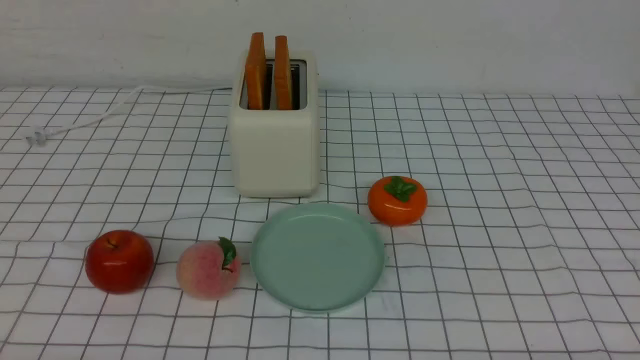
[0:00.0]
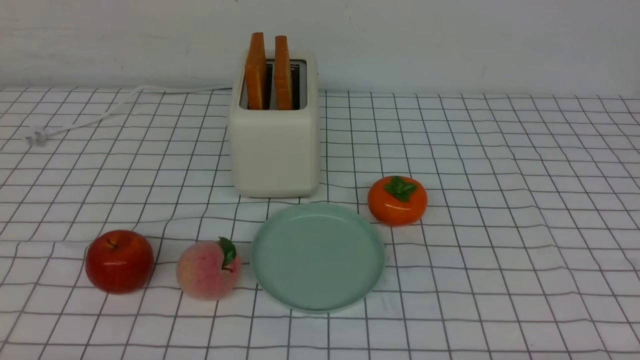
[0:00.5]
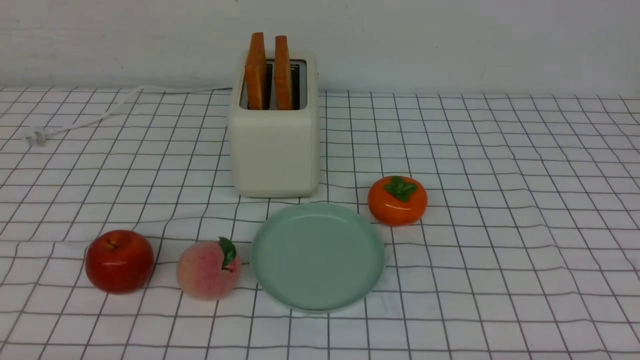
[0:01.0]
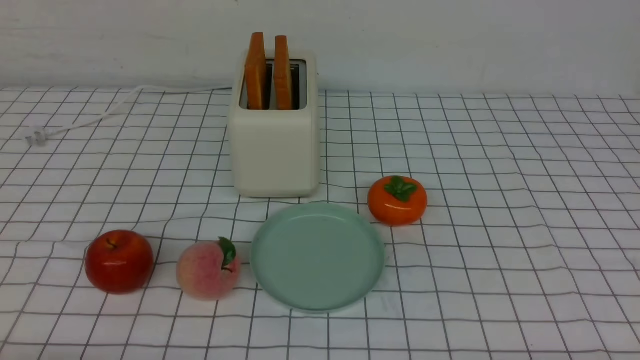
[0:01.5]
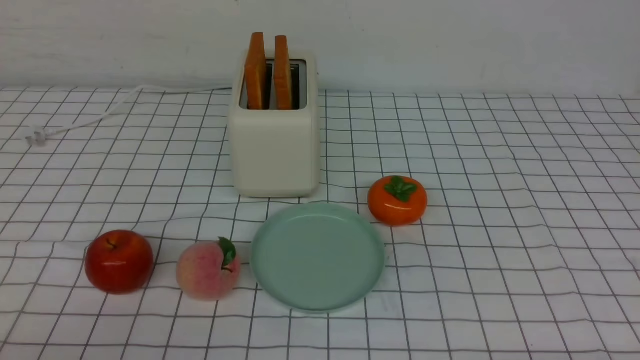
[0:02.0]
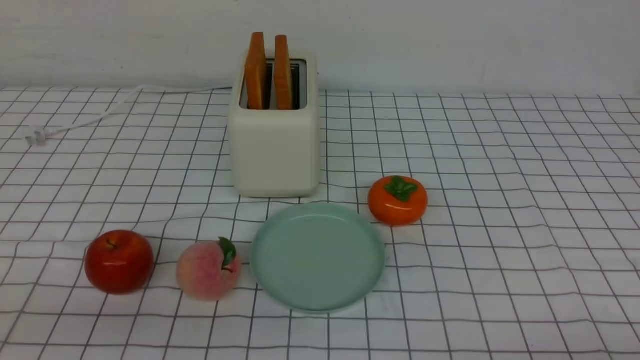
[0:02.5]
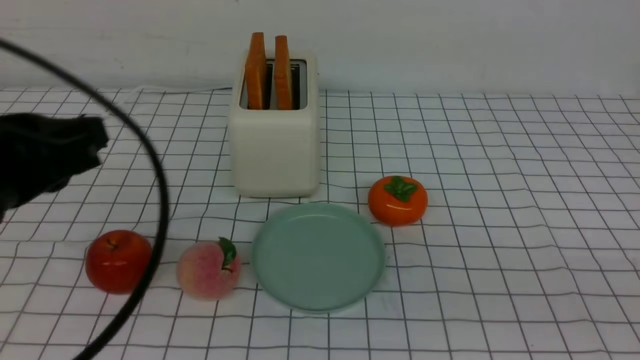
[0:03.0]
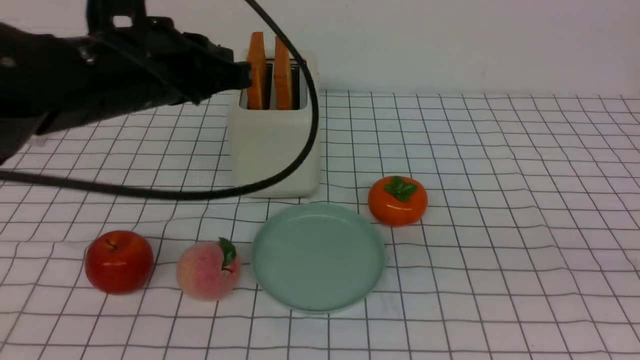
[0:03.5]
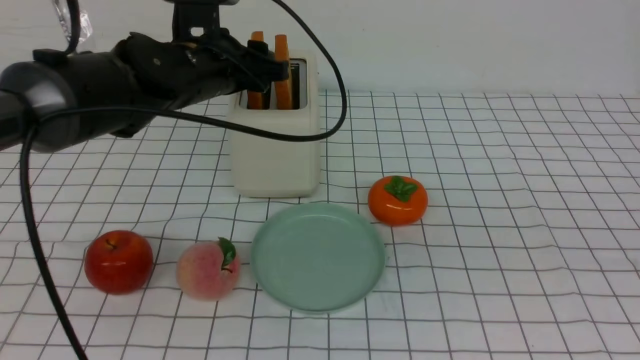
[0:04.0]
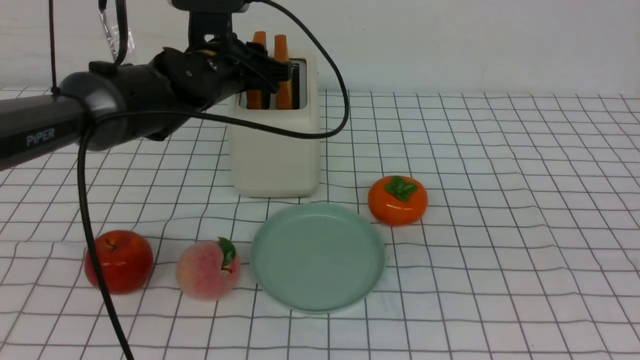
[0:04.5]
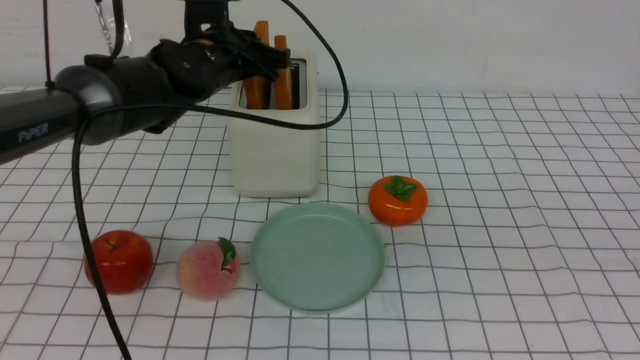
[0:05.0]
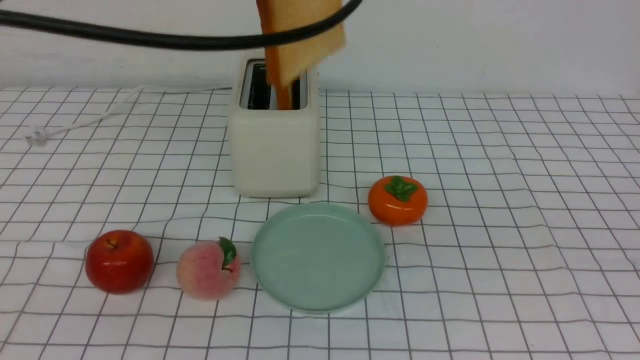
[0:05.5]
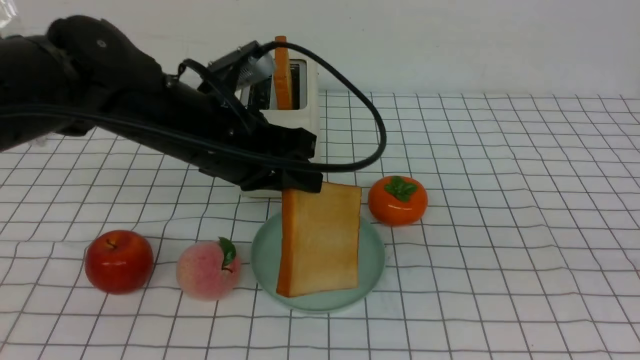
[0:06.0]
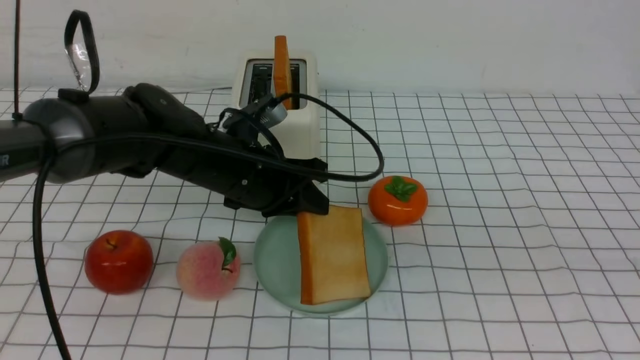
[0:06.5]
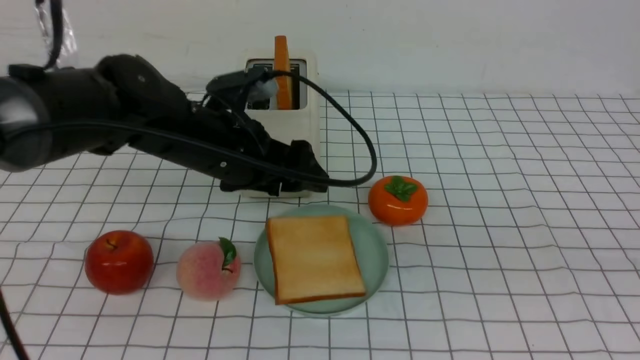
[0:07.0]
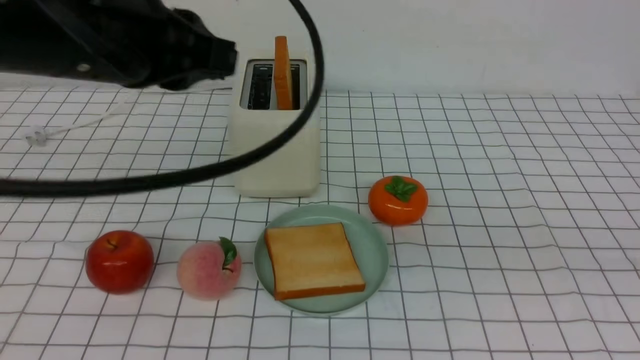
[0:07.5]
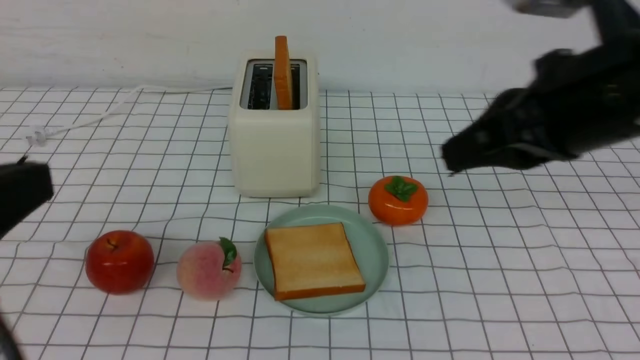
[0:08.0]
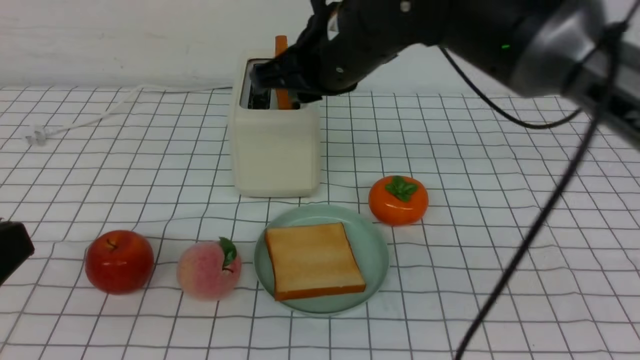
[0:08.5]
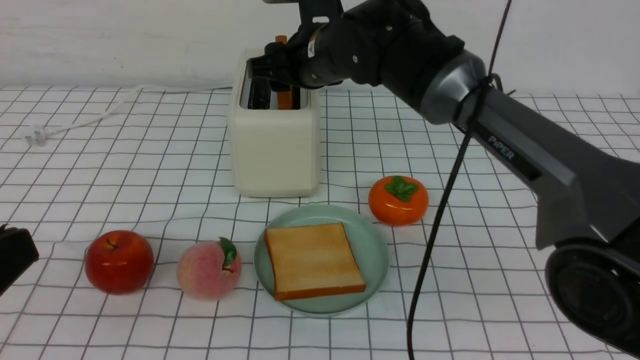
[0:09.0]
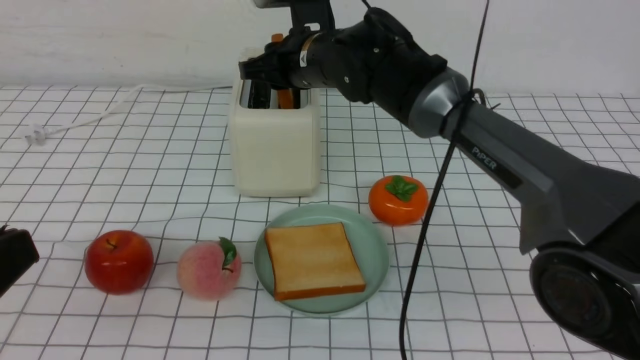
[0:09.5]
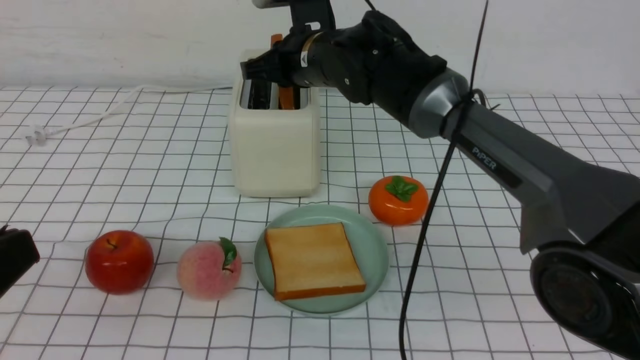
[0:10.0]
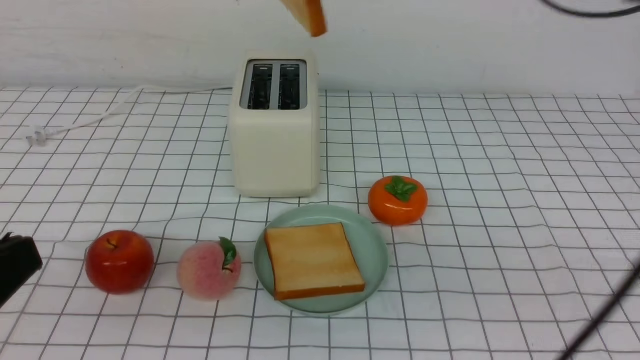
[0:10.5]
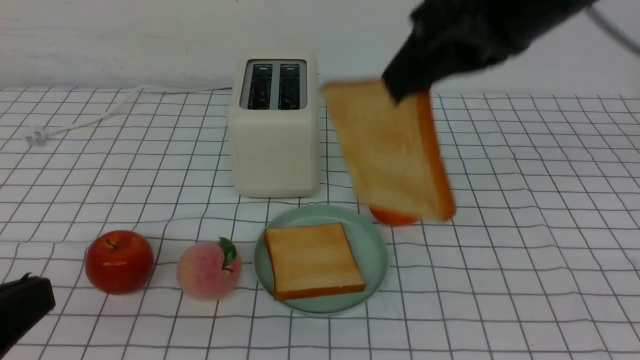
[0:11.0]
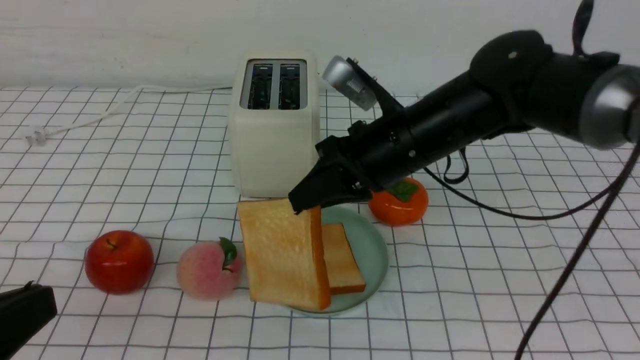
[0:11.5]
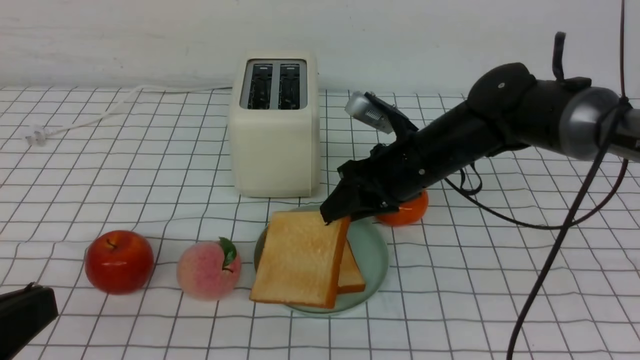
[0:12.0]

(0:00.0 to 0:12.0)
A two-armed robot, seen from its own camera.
Task of the whole recording: take toasted bread from bread machine on white checkered table place on plate.
Step, 0:00.0 - 0:05.0: use the left arm to take out a slice of bread.
Step, 0:05.5 - 0:07.0: use the left arm to put a slice of bread into the empty plate.
Step, 0:07.5 - 0:10.0: use the right arm to take out a slice of bread.
0:02.0 - 0:04.0: The left gripper shifts some 35 cm forward, and closes, then opens again, while the right gripper travels upward by roughly 25 cm, and closes up.
0:04.0 - 0:06.0: The left gripper travels backward by roughly 10 cm, goes upward and returns, some 10 cm each way, and closes.
0:06.0 - 0:08.0: The right gripper goes about 20 cm forward and to the left; the left gripper is displaced backward and to the left by roughly 25 cm, and opens, then closes once more.
0:08.0 - 0:10.0: The left gripper ends up roughly 5 cm from where it was. Meanwhile the right gripper is displaced forward and to the left by some 25 cm, and opens and closes again.
0:10.0 - 0:12.0: The right gripper goes some 15 cm to the right and backward, travels upward and back again, about 15 cm each way, and opens up.

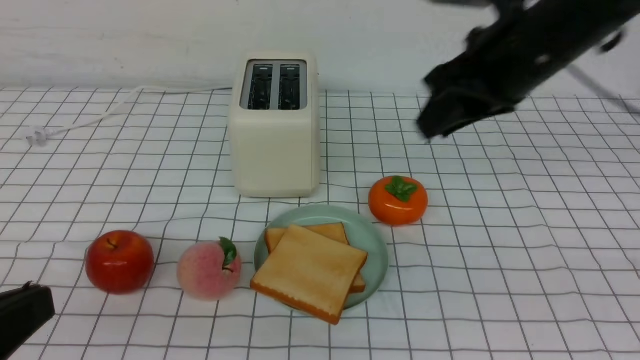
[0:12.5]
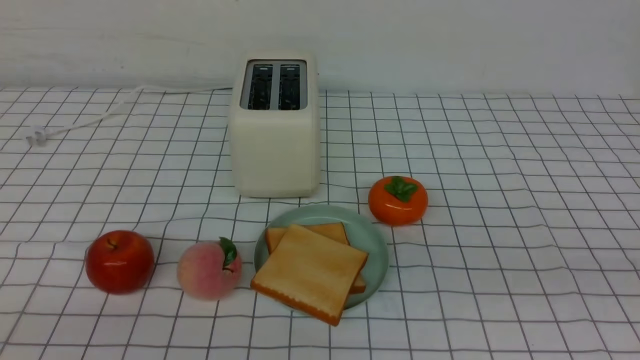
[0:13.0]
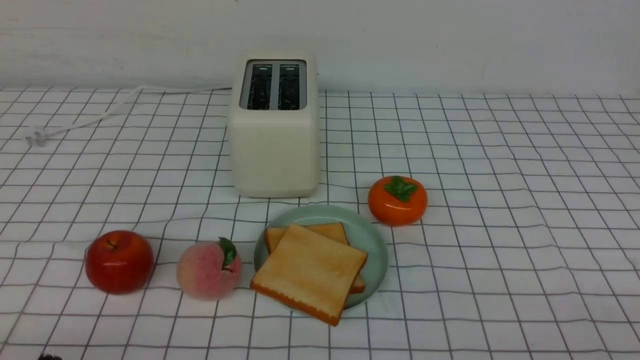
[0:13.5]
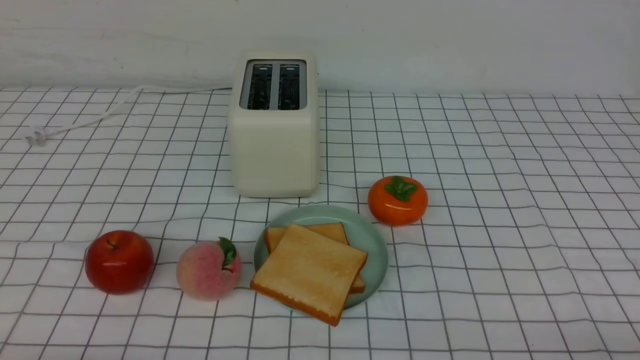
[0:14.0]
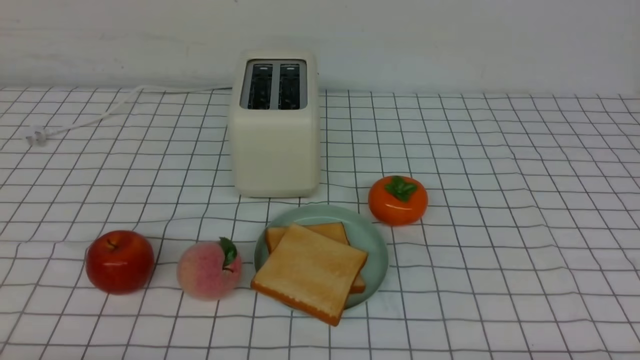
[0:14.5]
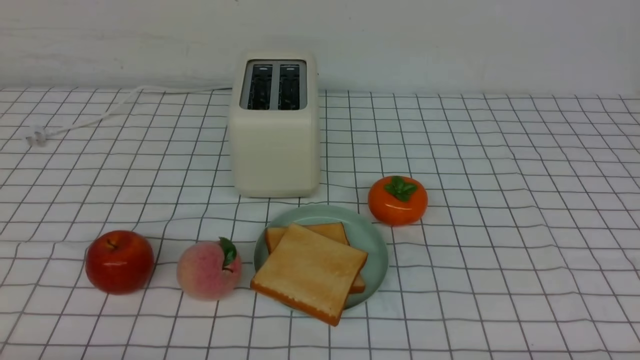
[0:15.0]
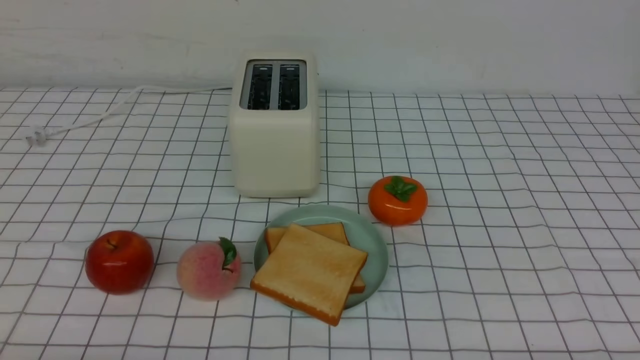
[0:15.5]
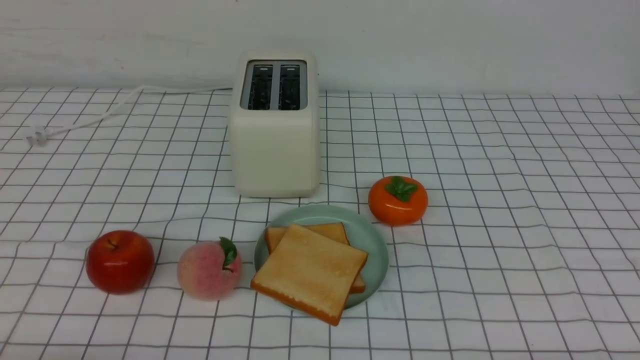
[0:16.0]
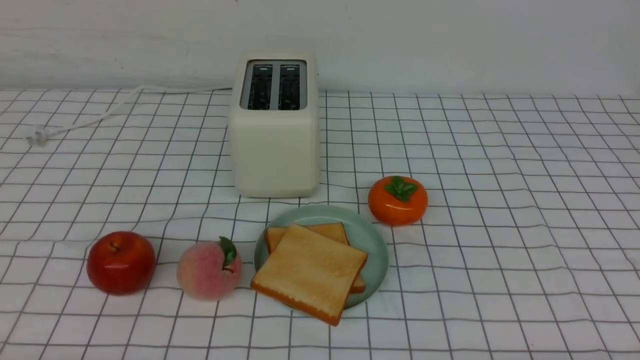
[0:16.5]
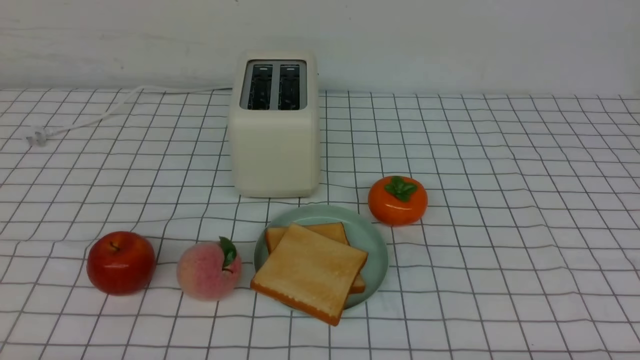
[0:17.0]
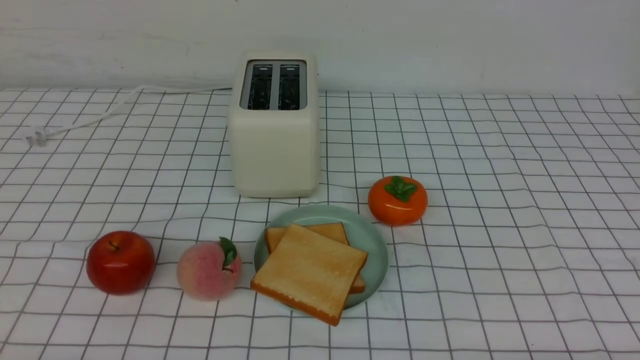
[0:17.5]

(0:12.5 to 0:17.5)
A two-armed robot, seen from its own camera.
Task of the whole recording: take toasted bread from bread machine on white checkered table place on plate.
0:12.5 - 0:15.0: The left gripper travels downward by some 15 cm. Meanwhile the right gripper shifts some 35 cm backward, downward and to the right, and closes up.

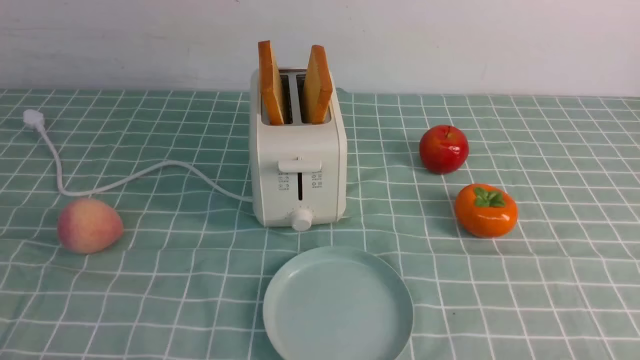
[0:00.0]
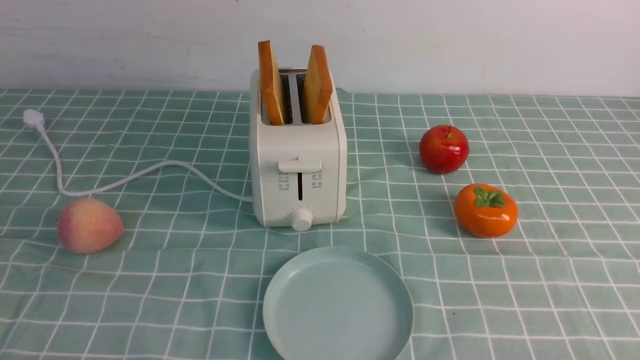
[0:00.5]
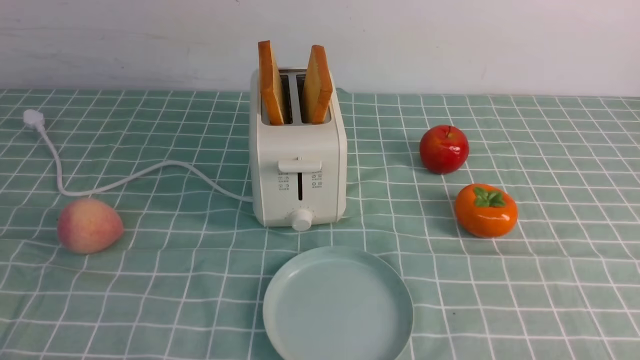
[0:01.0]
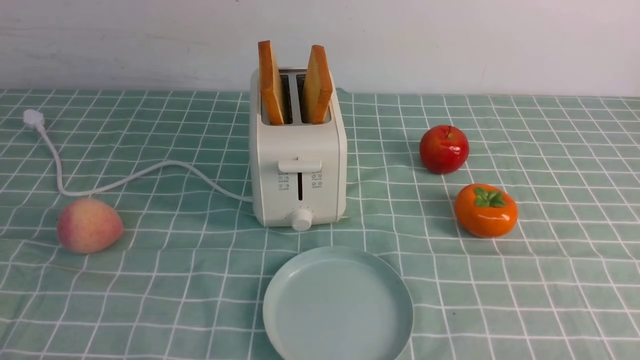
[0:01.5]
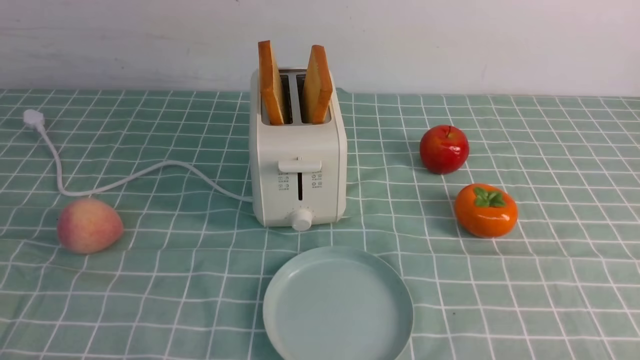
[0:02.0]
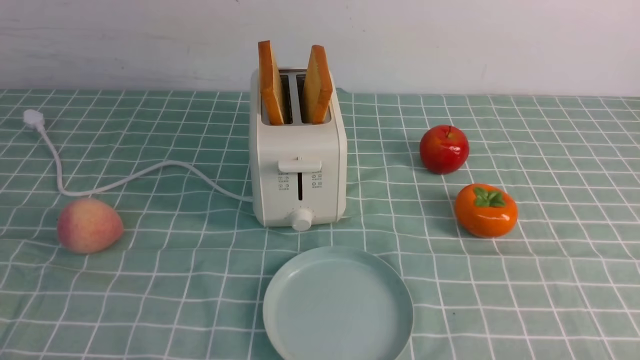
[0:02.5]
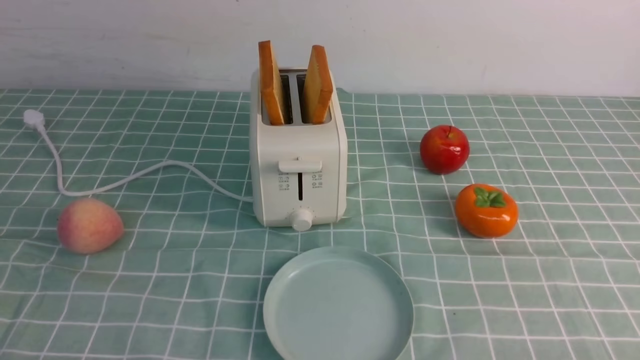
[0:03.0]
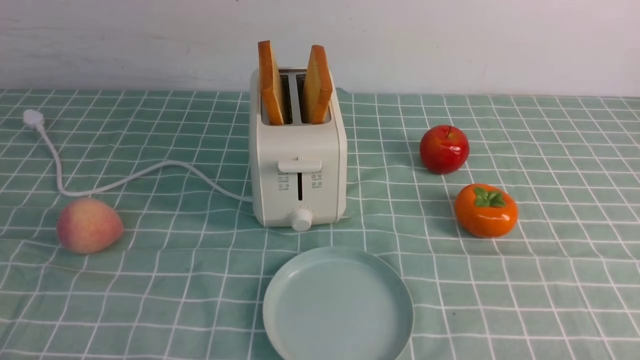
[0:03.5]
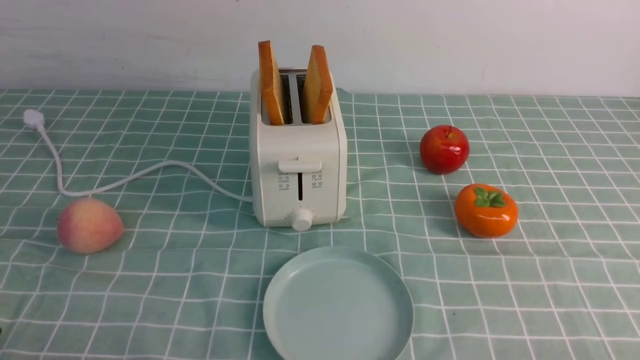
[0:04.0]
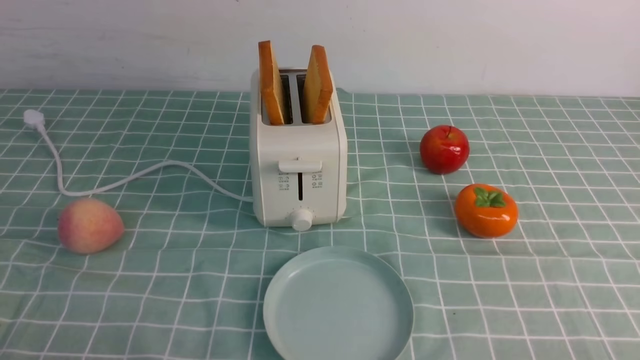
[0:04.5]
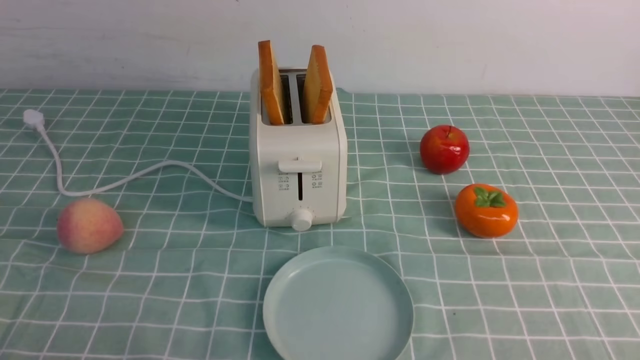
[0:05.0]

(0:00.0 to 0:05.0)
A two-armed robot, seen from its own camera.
Task of the whole recording: take toasted bread from bread machine on blue coffee table place on plate.
0:00.0 - 0:02.5: Neither gripper changes place.
